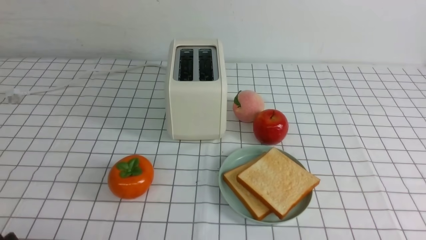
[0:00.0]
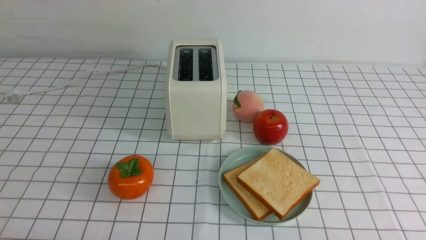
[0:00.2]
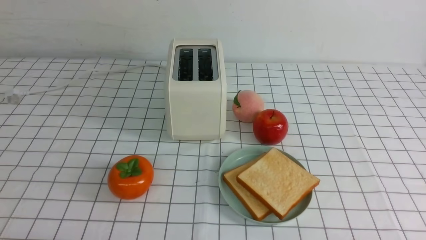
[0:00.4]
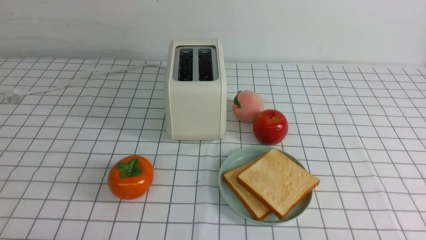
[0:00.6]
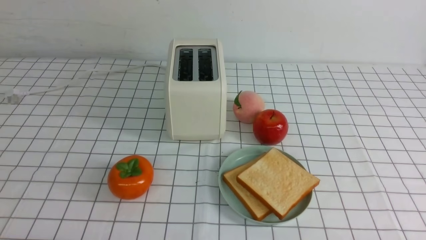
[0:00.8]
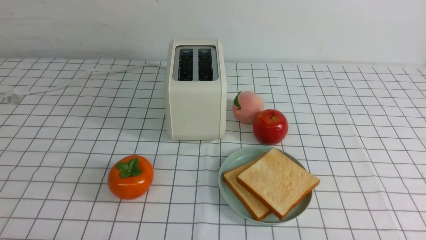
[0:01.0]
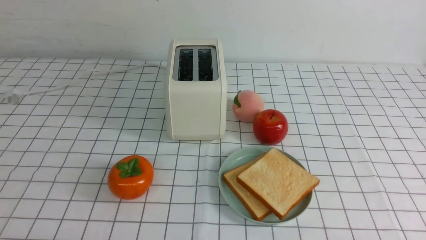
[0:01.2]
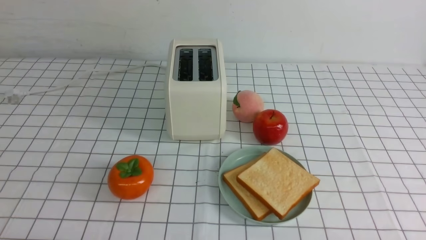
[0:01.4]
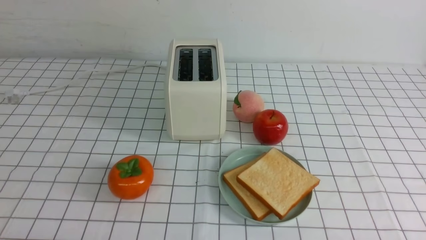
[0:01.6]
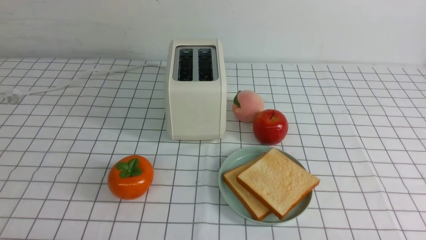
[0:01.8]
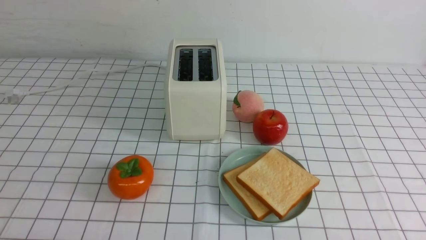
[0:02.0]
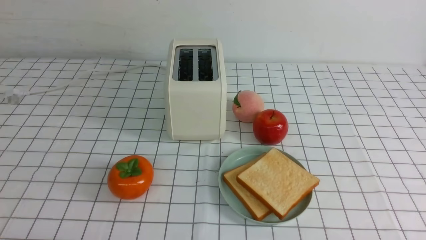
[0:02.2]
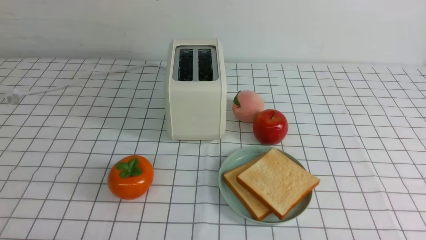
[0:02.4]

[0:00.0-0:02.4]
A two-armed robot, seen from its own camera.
Task of the whole recording: take toasted bread from bread machine on white checkered table place on plate.
0:01.2 to 0:02.4: Both grippers stay put.
